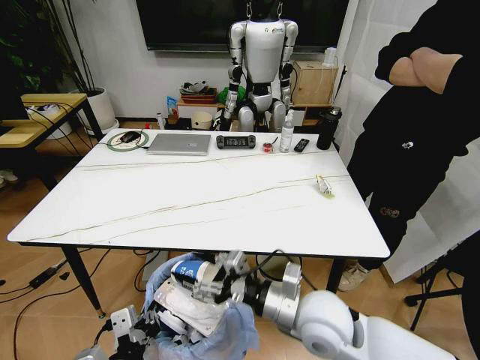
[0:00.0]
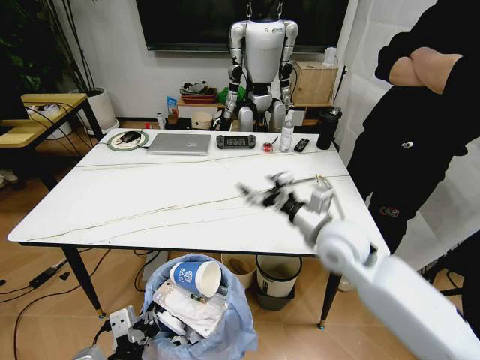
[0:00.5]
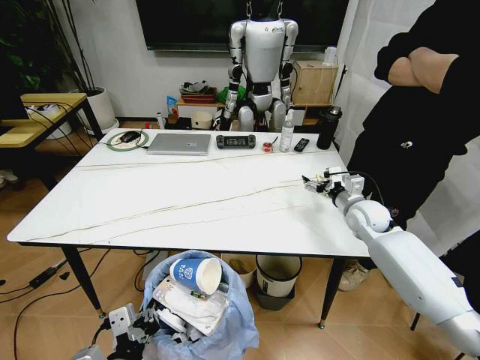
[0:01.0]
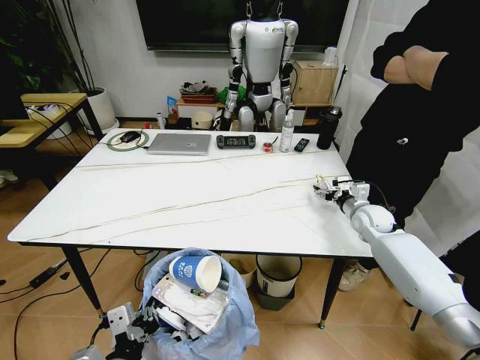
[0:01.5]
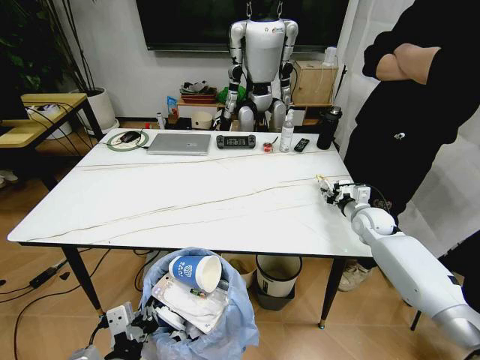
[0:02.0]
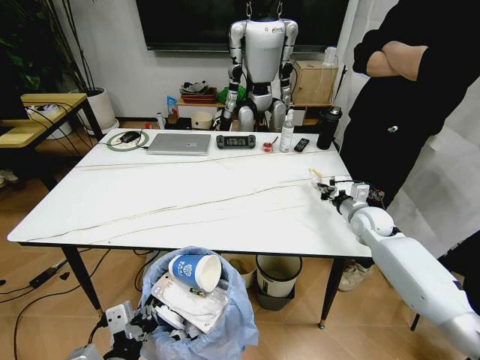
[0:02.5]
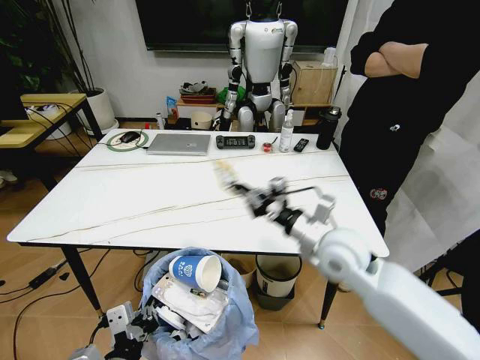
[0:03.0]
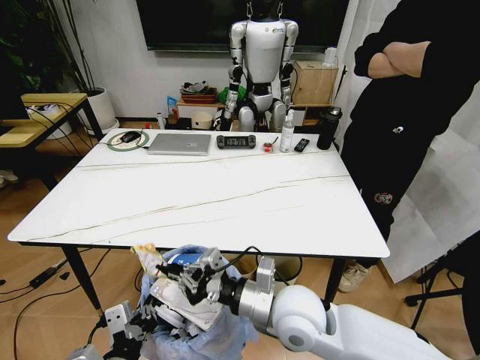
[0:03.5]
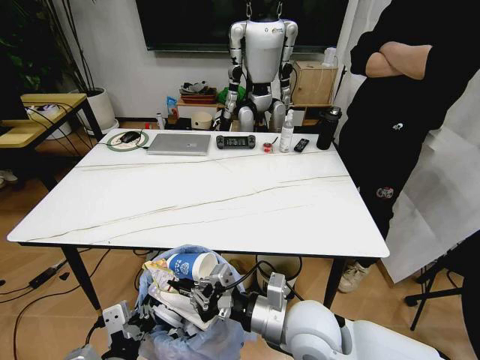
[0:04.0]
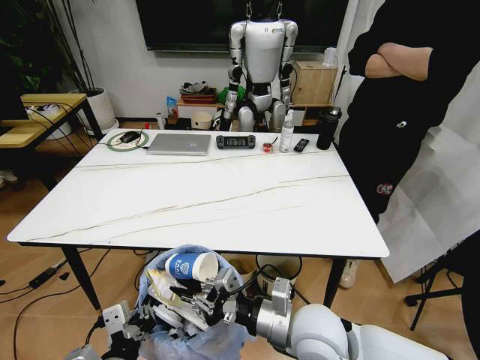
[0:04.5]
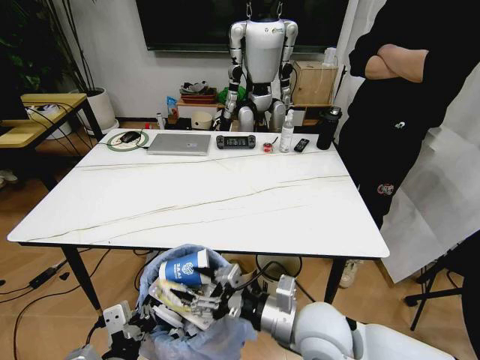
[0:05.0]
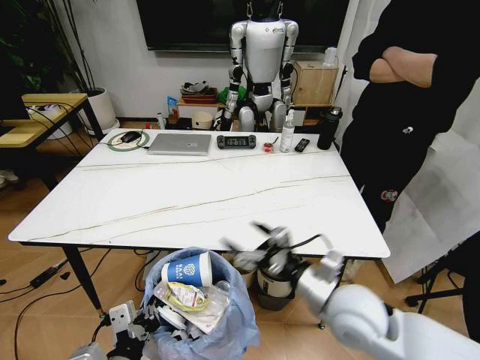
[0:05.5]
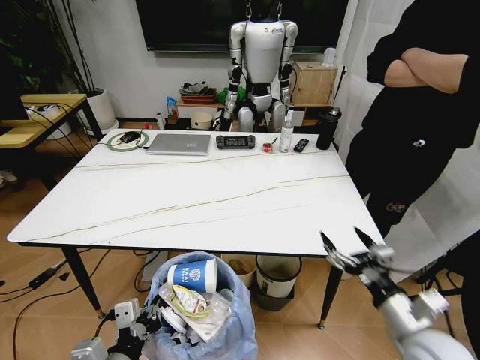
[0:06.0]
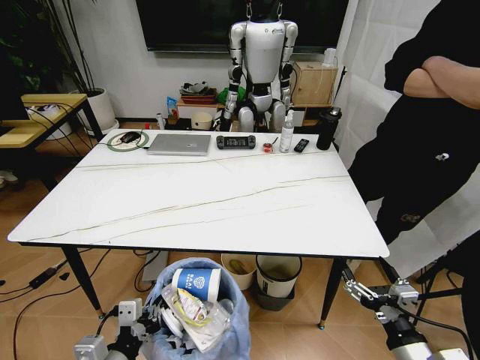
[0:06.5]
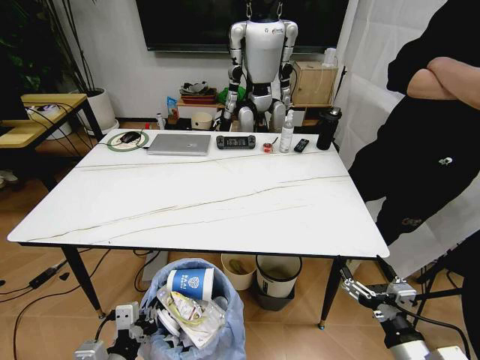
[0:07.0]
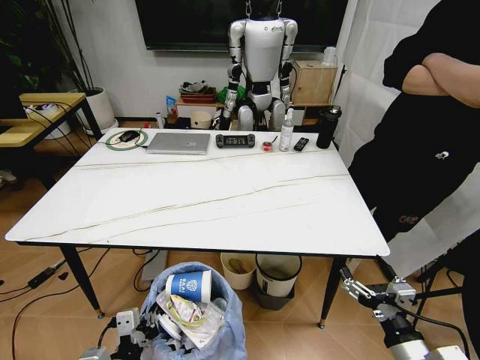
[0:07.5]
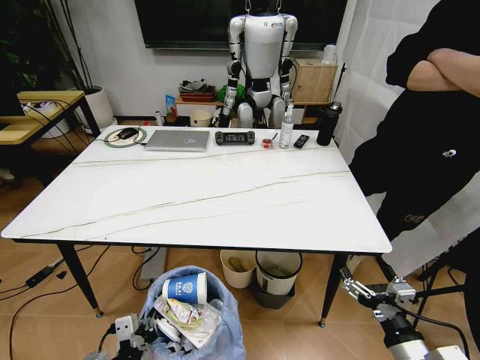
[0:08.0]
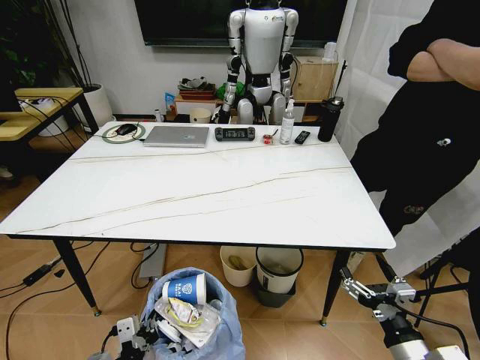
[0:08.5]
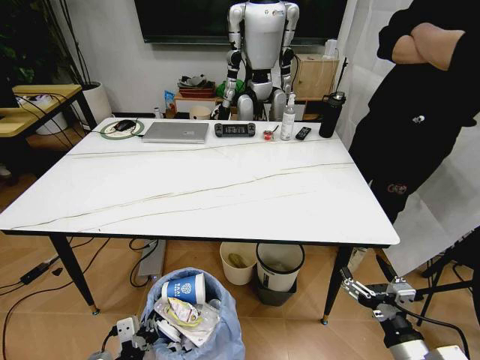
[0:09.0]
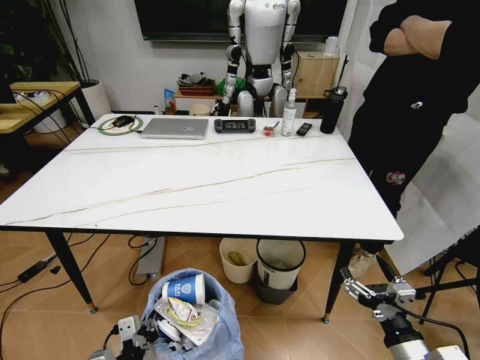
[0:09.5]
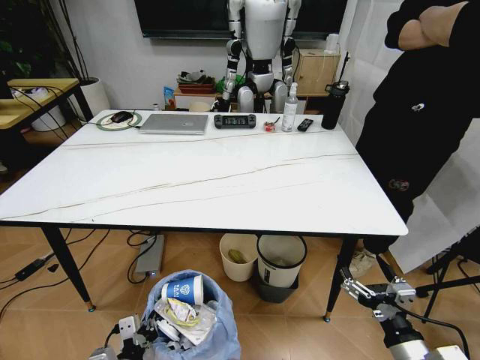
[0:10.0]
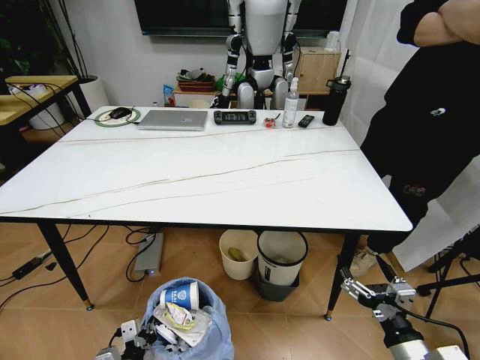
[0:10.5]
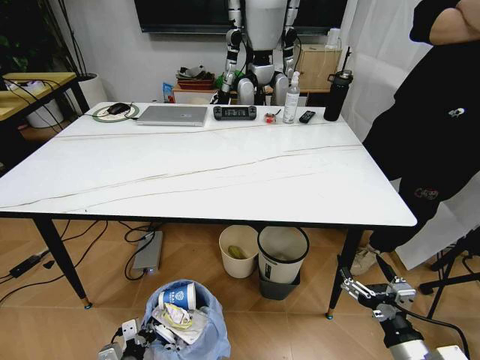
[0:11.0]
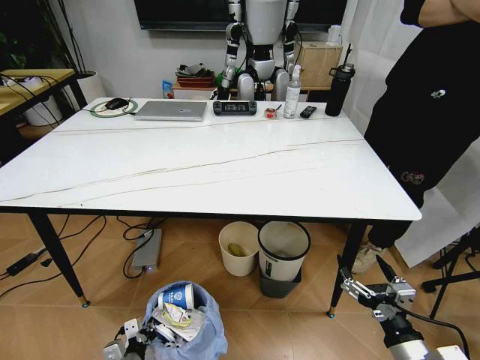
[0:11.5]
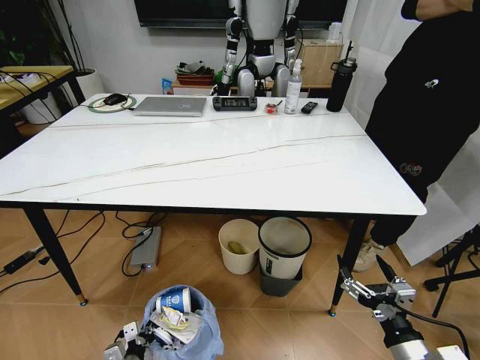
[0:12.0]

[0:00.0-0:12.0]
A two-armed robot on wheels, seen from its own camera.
Task of the whole recording: Pick up the trash bin and place the trash from the table into it.
0:00.0 to 0:02.0: The right gripper travels forward and to the right by some 35 cm, and opens, then closes again.
0:02.0 to 0:04.0: The right gripper travels backward and to the left by roughly 40 cm.
0:04.0 to 0:06.0: The right gripper goes about 20 cm to the right, and opens up.
0:06.0 to 0:08.0: The left gripper heads downward, covering about 10 cm, while the right gripper moves backward, approximately 5 cm.
0:08.0 to 0:10.0: The left gripper changes place by approximately 5 cm.
0:10.0 to 0:12.0: The left gripper goes roughly 15 cm downward.

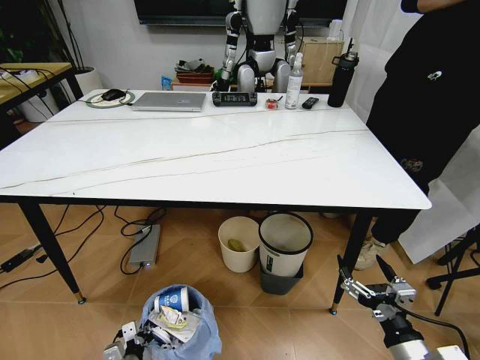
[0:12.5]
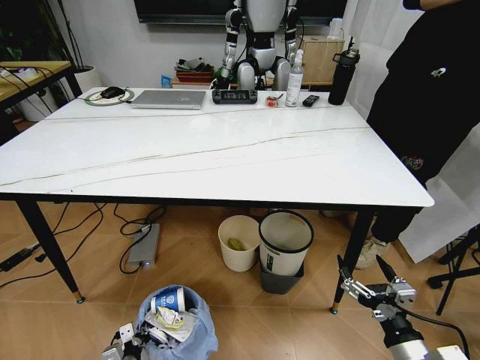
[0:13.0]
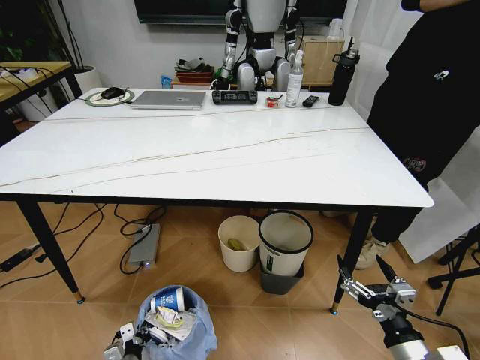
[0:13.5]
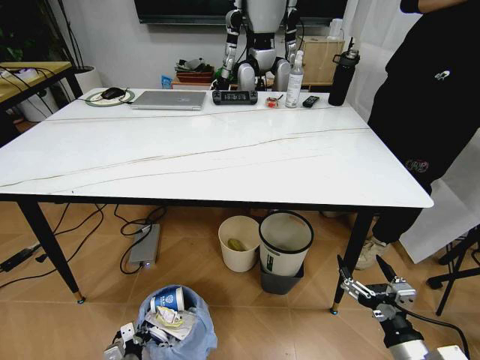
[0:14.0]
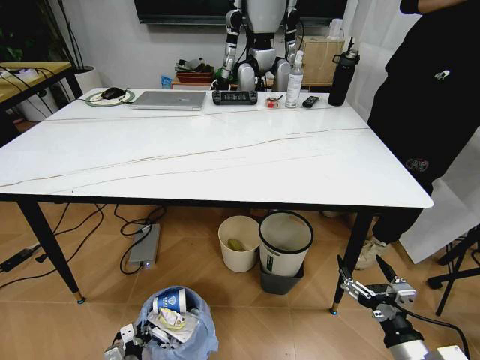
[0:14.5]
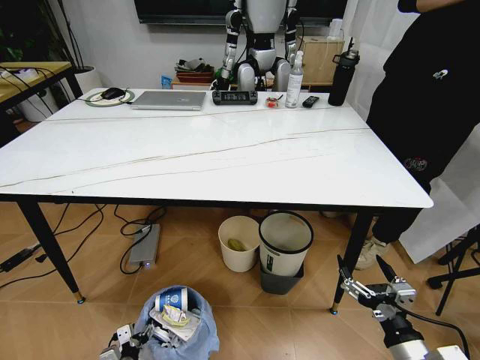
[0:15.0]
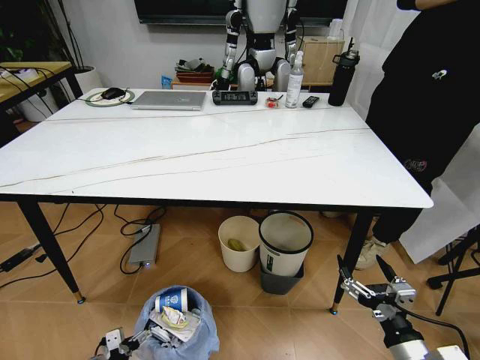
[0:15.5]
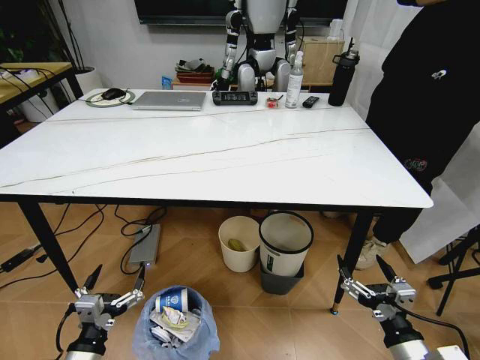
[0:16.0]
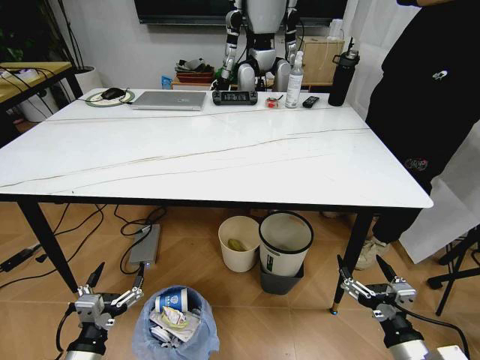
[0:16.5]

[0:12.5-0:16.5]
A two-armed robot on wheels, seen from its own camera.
Task of the whole recording: Pick up the trash bin and place the trash from the table into it.
0:12.5 to 0:14.5: The grippers move only a little.
0:14.5 to 0:16.5: The left gripper is displaced upward by some 25 cm, and opens.
